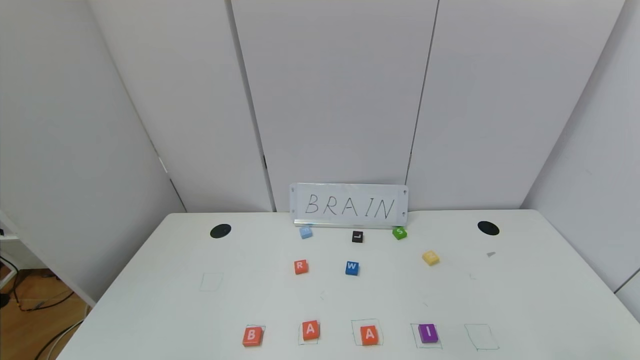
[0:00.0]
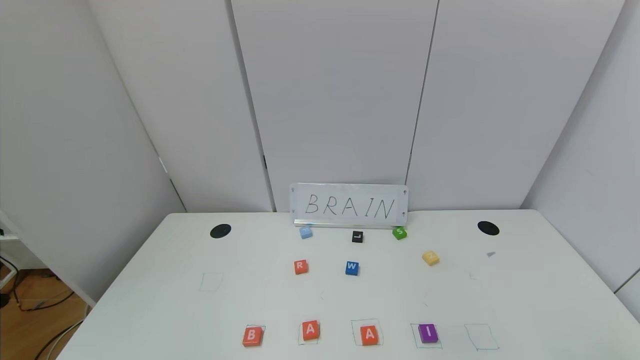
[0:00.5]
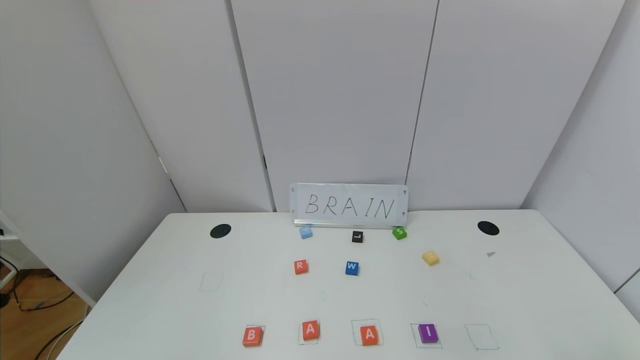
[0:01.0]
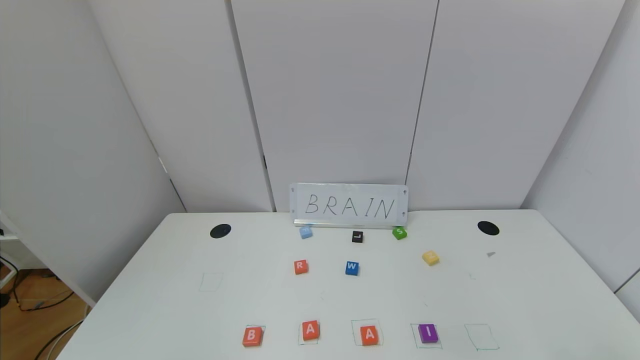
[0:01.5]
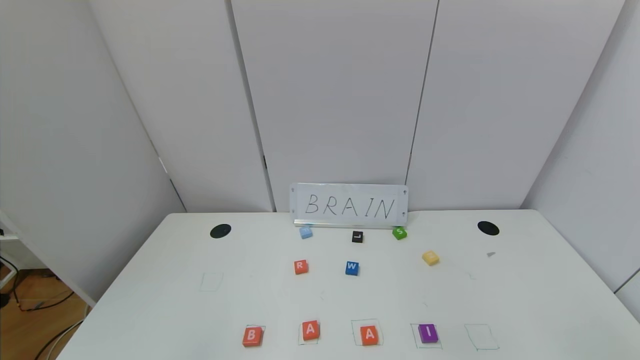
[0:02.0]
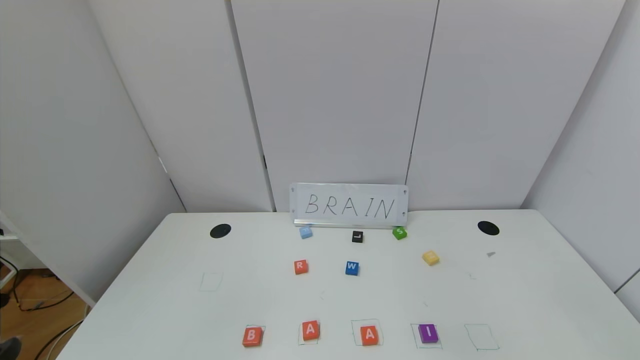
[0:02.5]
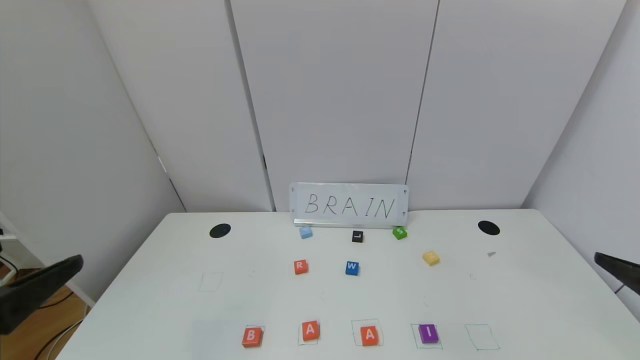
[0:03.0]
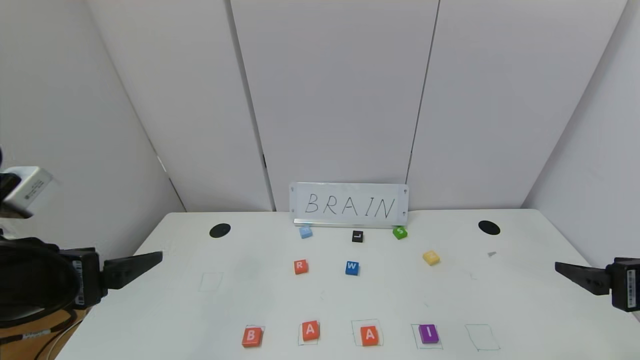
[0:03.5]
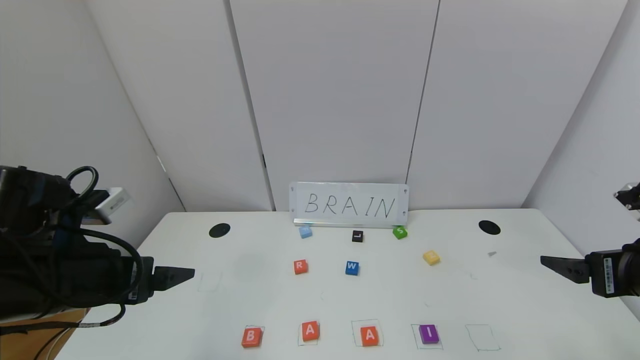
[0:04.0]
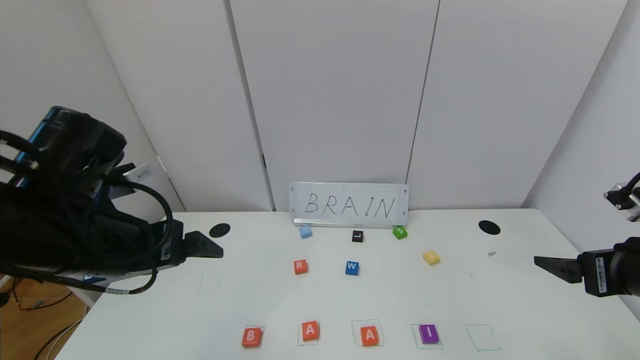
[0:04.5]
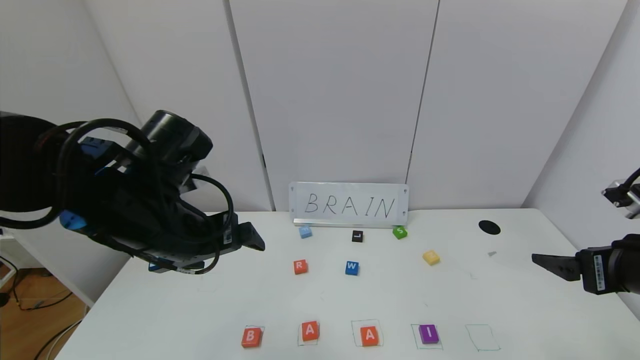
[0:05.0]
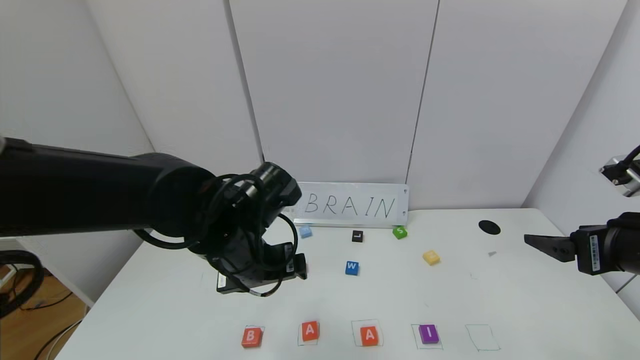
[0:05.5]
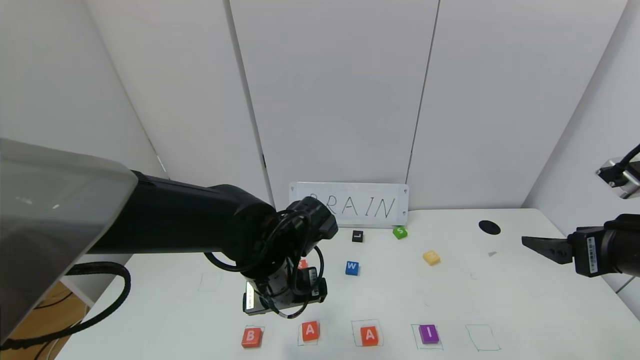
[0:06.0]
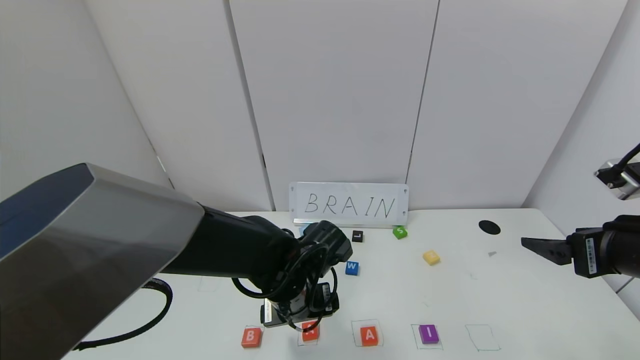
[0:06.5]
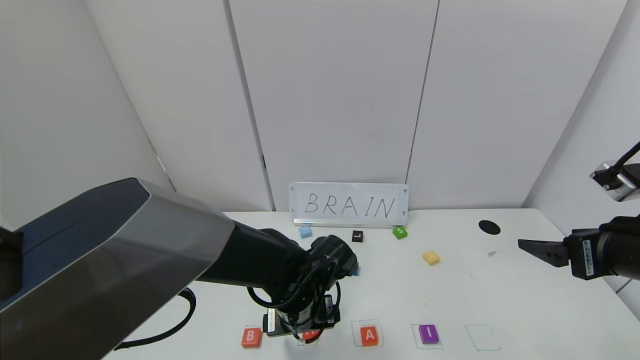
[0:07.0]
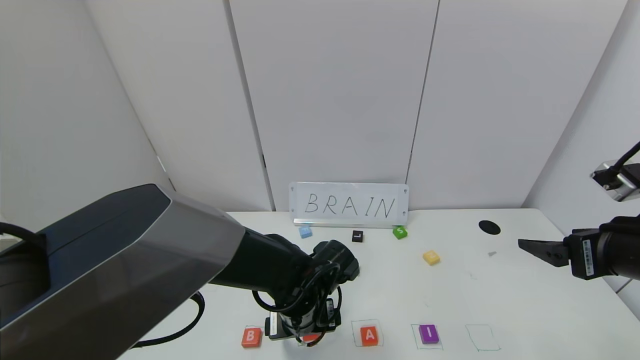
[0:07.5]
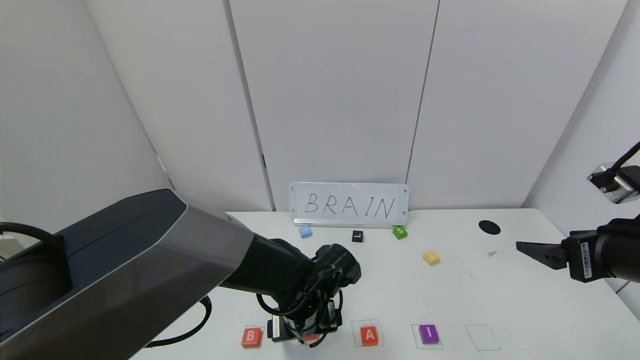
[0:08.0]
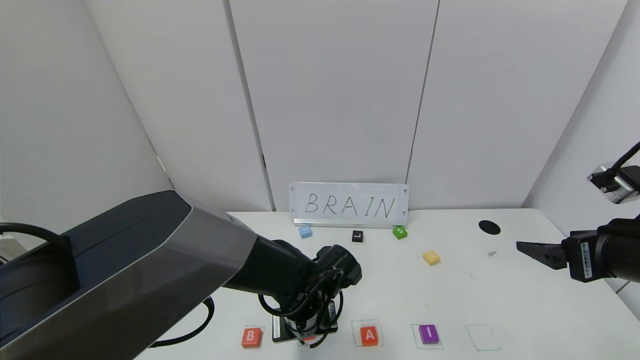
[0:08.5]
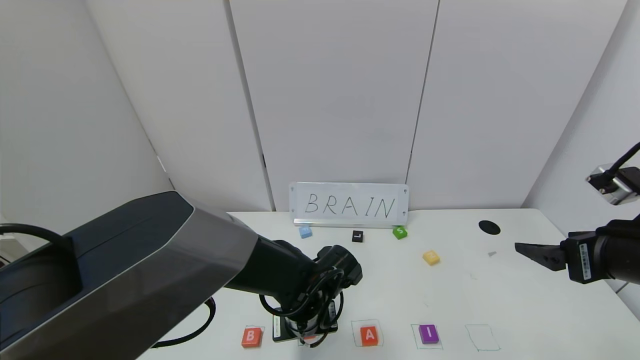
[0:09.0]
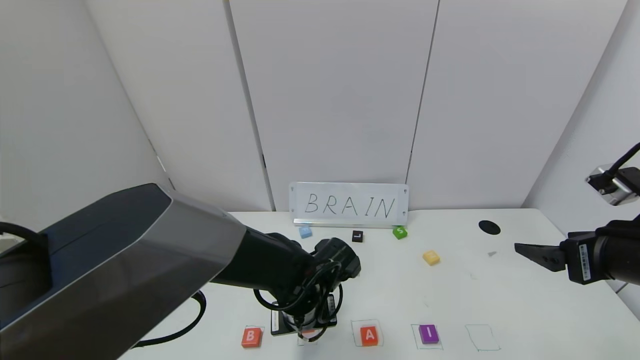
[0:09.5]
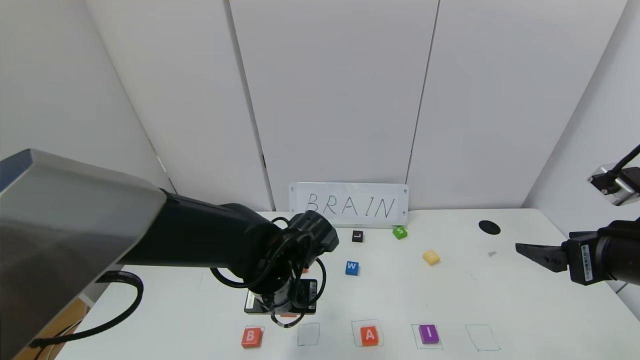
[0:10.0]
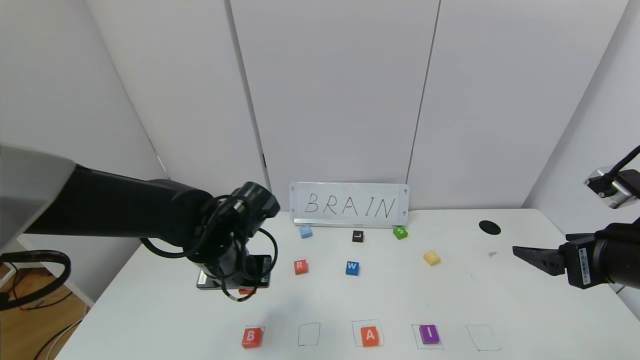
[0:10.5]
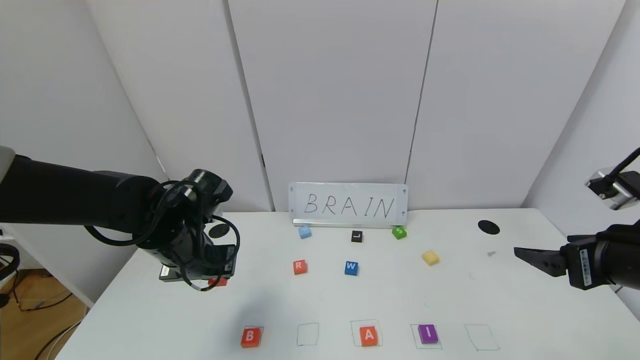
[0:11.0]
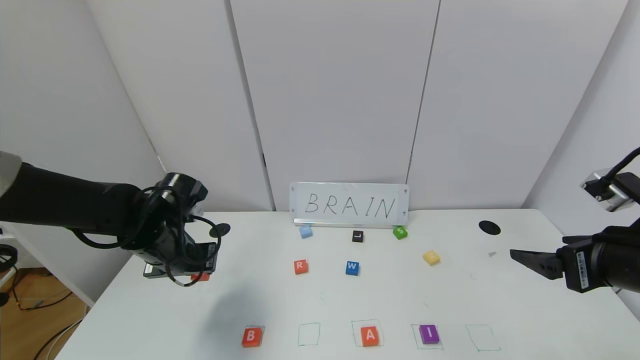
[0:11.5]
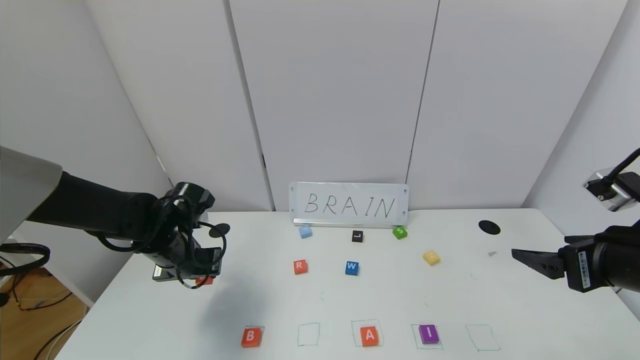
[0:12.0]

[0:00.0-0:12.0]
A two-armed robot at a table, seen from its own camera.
Task of the whole recording: use the gripper to find blocks with the letters b, a, a, and i on the table and arrange them into BAAI, then find r and N and turn the arranged baai into brian.
0:02.0 to 0:04.0: Both grippers travel together forward, some 20 cm.
0:04.0 to 0:06.0: The left gripper moves to the right and forward, about 20 cm.
0:06.0 to 0:08.0: The left gripper moves downward, roughly 10 cm.
0:08.0 to 0:10.0: The left gripper is displaced upward by approximately 5 cm, and closes up.
0:10.0 to 0:12.0: The left gripper heads to the left, covering about 20 cm.

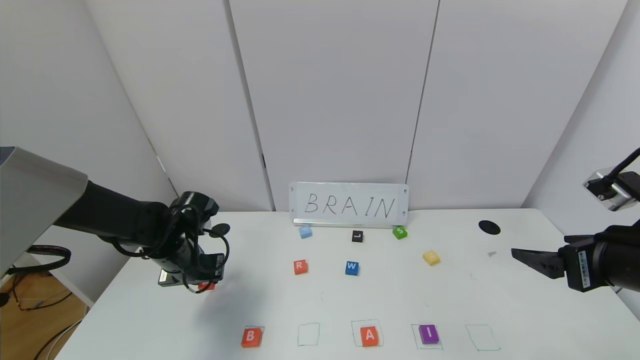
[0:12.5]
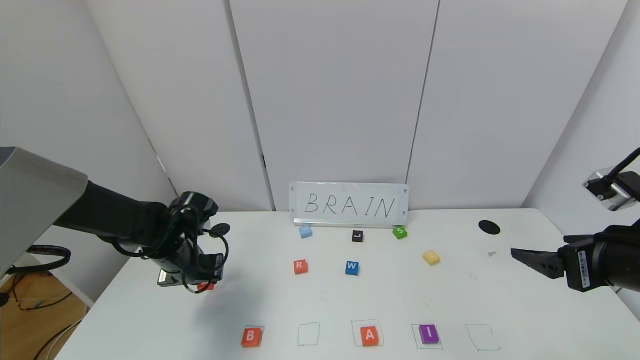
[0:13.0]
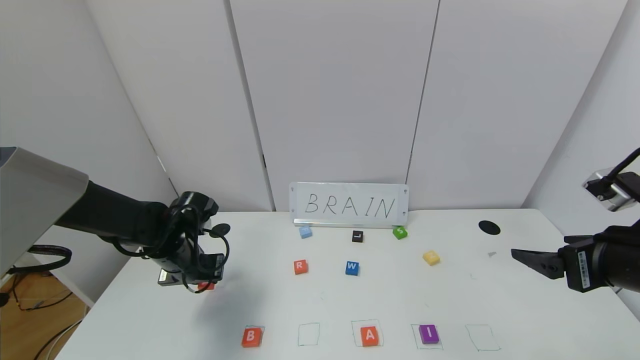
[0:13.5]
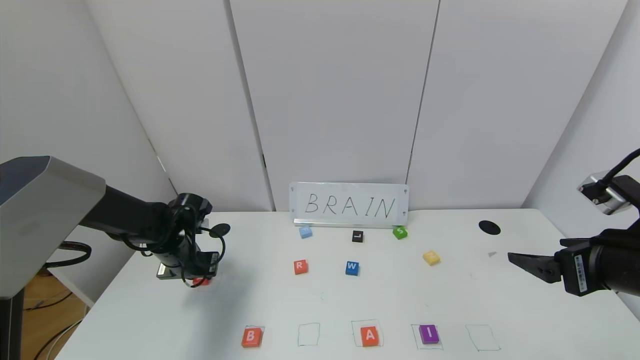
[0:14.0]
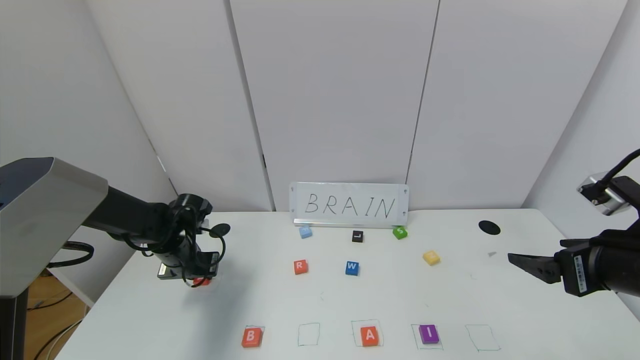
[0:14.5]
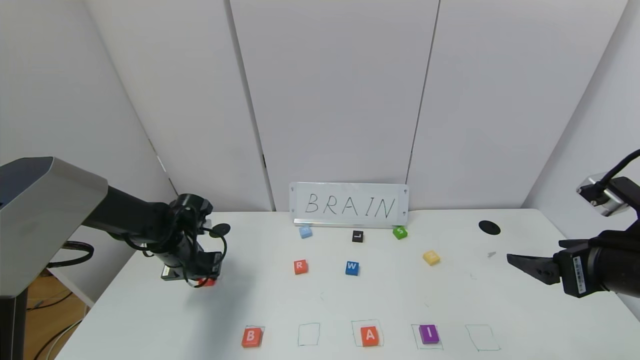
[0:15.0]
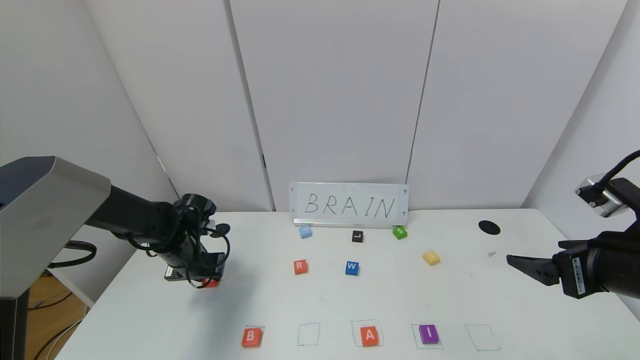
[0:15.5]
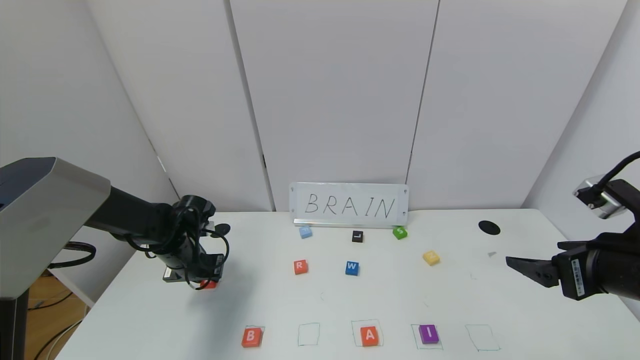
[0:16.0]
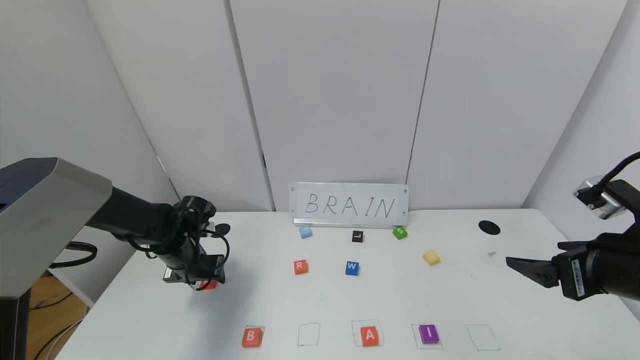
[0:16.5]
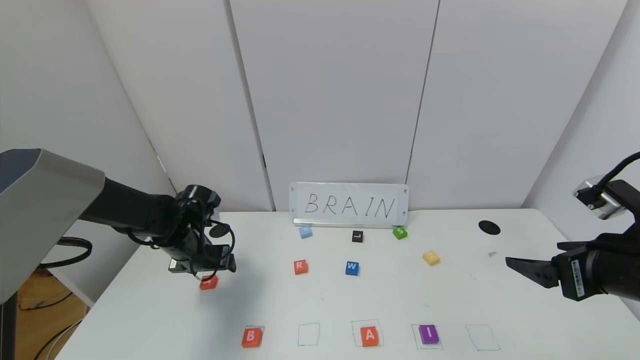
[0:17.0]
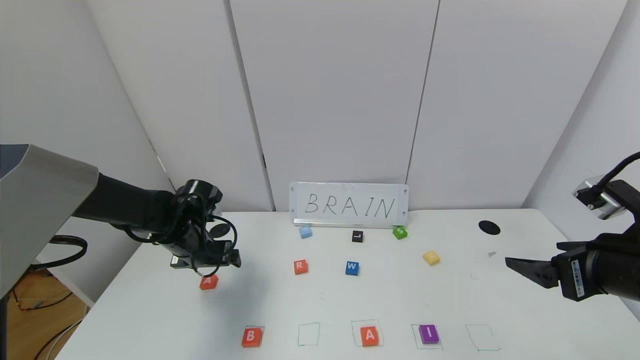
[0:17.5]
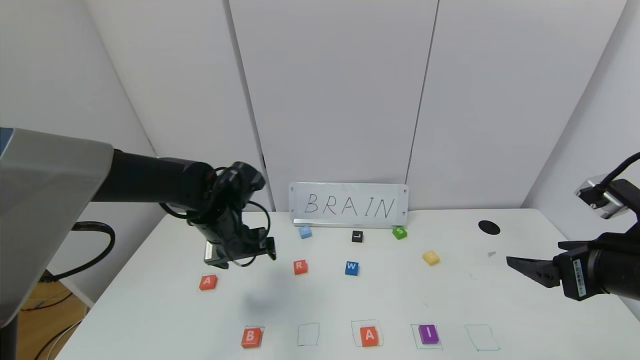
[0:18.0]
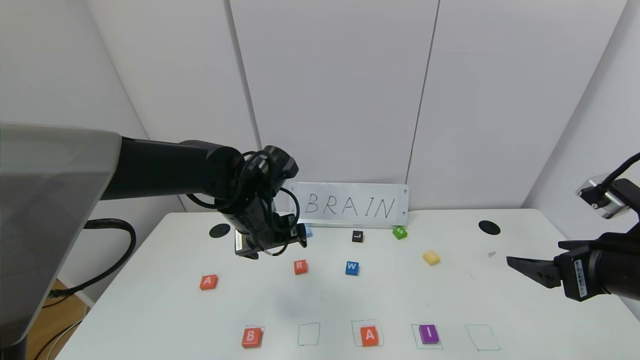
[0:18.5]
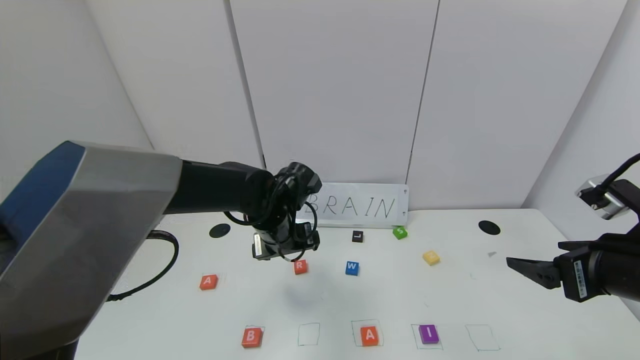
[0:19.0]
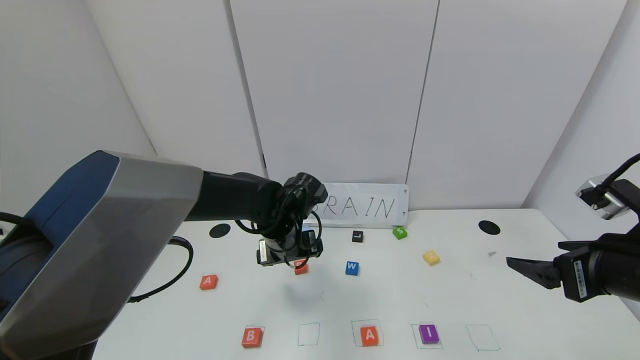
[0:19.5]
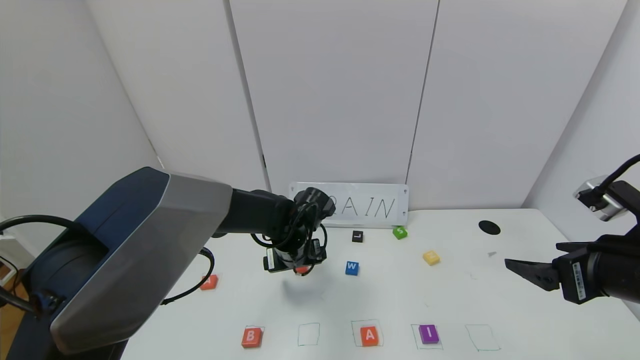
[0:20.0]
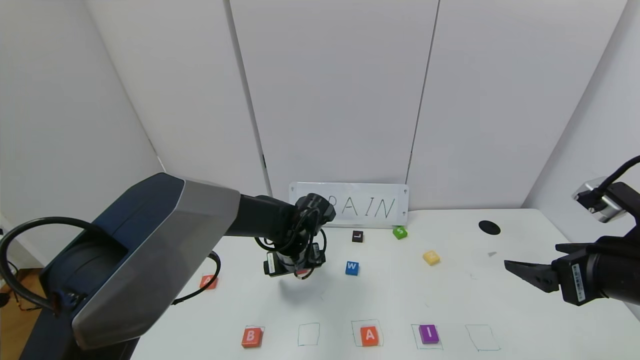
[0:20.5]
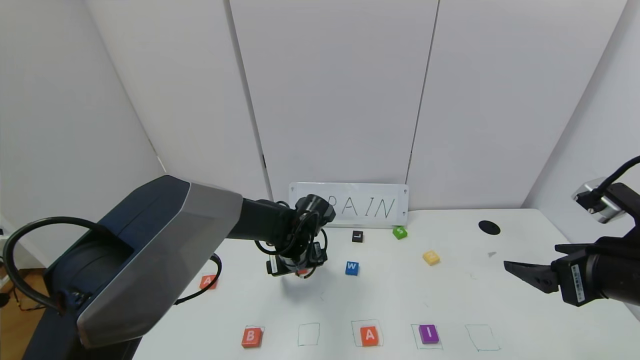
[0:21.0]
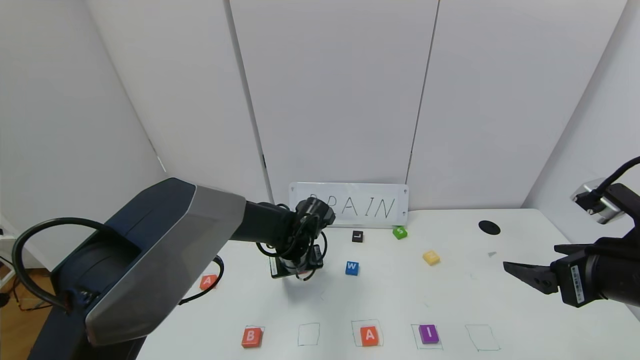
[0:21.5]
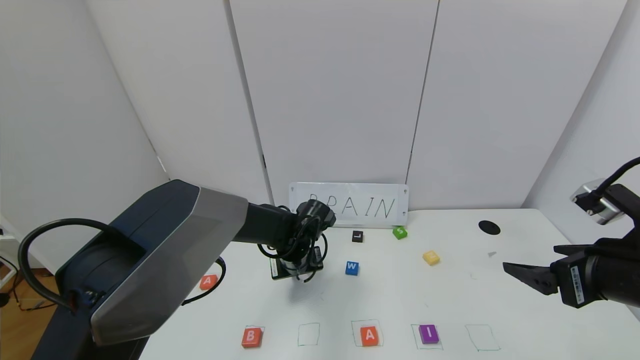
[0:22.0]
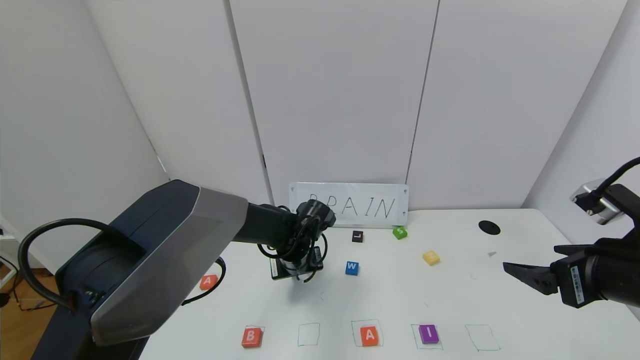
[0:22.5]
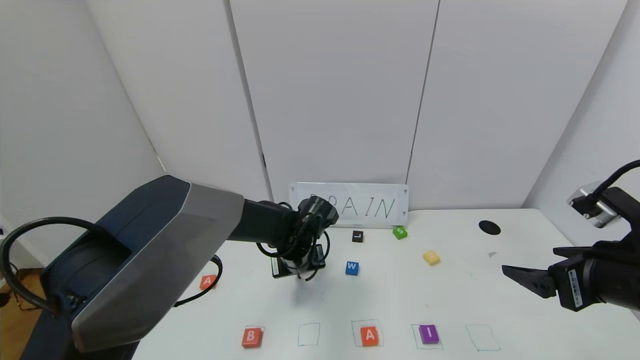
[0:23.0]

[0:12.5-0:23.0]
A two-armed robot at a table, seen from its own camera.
Task of the whole recording: use the gripper to find blocks with the letters b, a, a, and i on the table and arrange them into BAAI, then find r and N and turn the arranged baai into brian.
Step, 0:12.5 to 0:16.5: Move the block A out of the second location.
0:12.5 to 0:14.5: The left gripper changes place by approximately 5 cm.
0:14.5 to 0:16.5: The left gripper opens up.
0:16.5 to 0:19.0: The left gripper shifts roughly 20 cm to the right and upward, and opens up.
0:19.0 to 0:21.0: The left gripper is displaced downward by some 5 cm.
0:21.0 to 0:23.0: The left gripper closes up.
